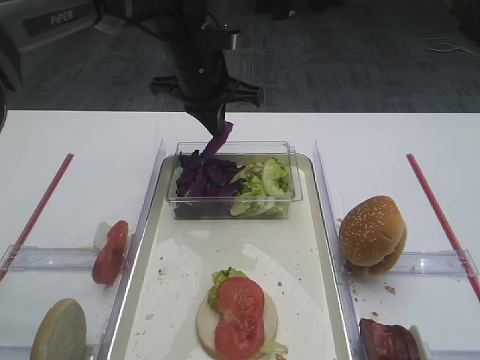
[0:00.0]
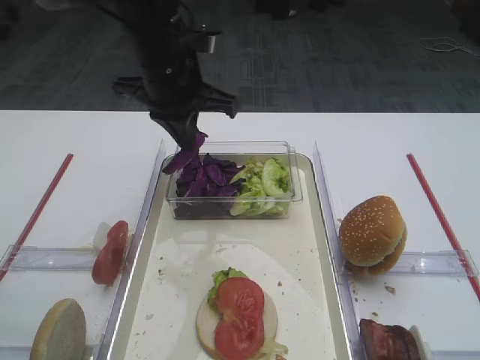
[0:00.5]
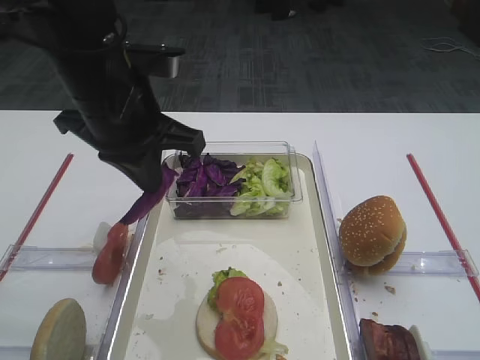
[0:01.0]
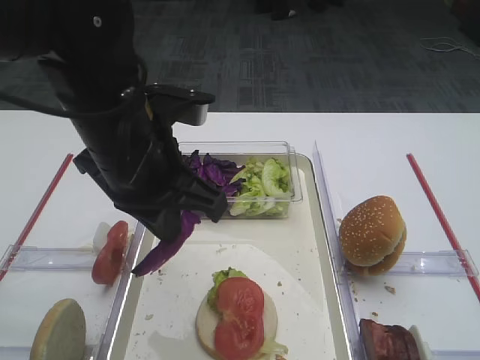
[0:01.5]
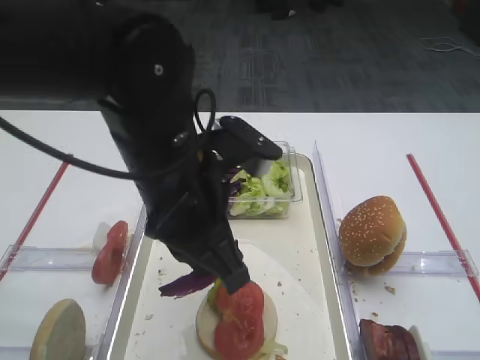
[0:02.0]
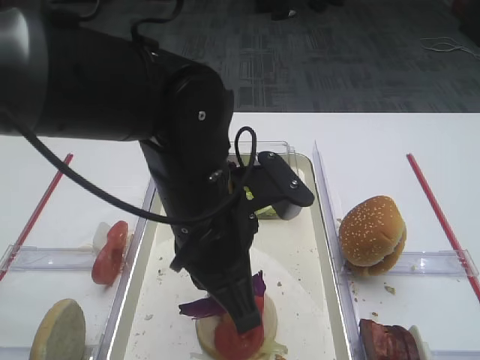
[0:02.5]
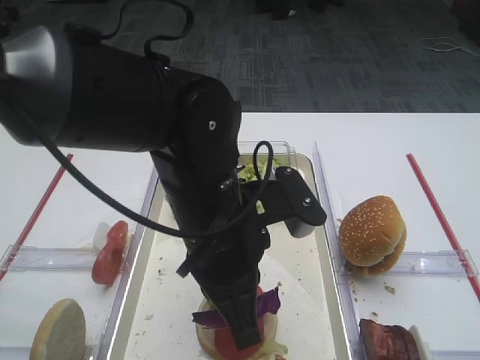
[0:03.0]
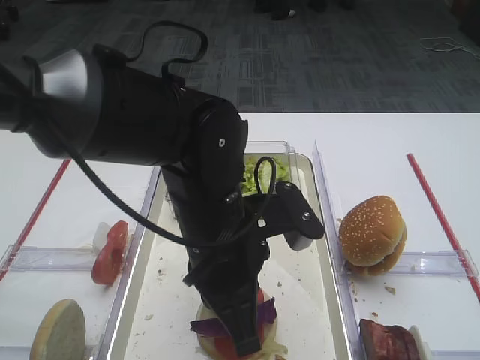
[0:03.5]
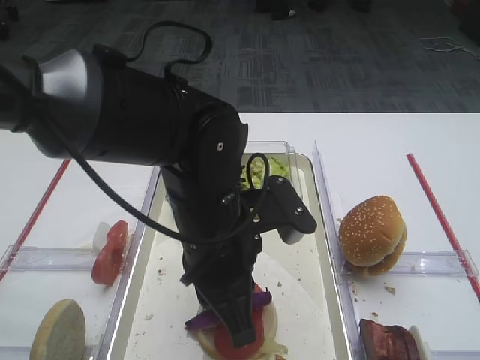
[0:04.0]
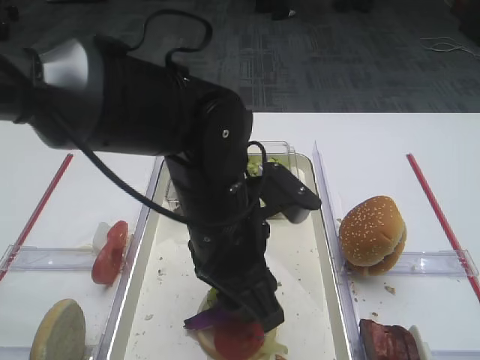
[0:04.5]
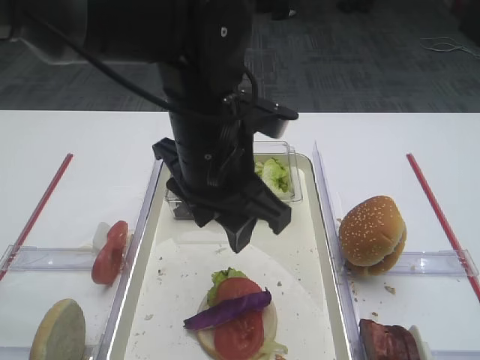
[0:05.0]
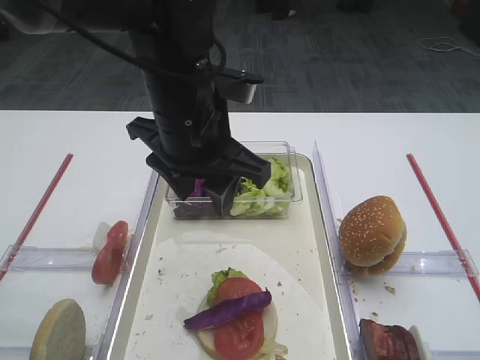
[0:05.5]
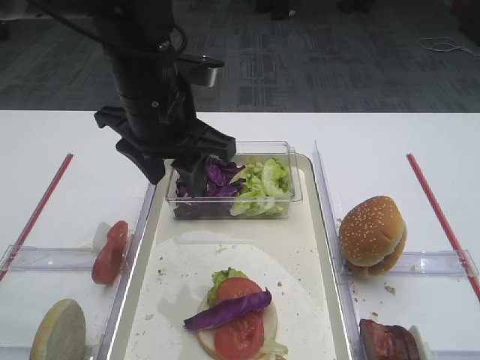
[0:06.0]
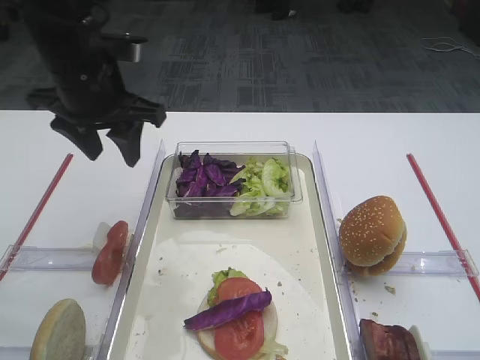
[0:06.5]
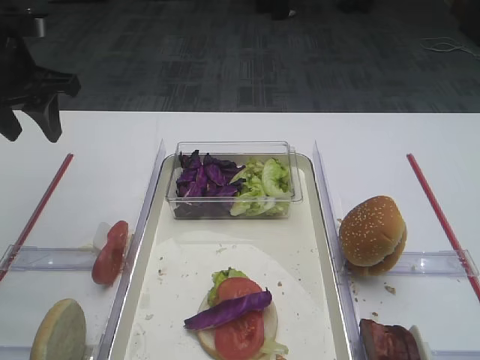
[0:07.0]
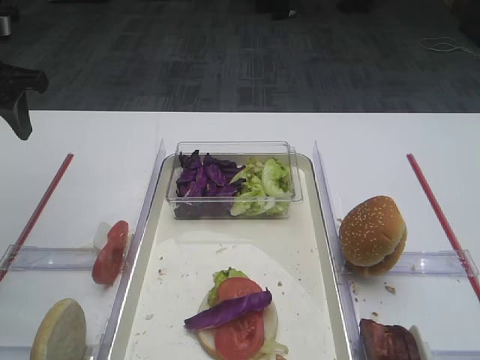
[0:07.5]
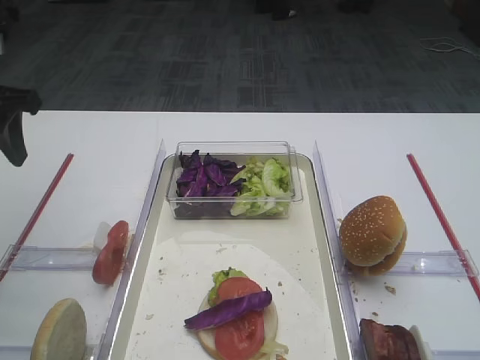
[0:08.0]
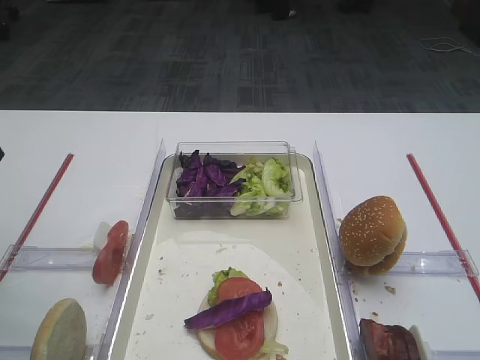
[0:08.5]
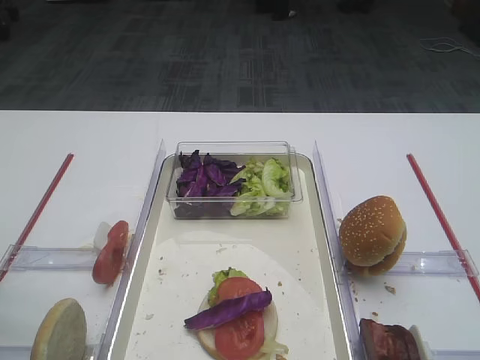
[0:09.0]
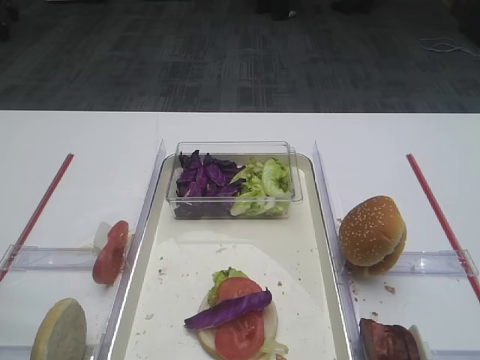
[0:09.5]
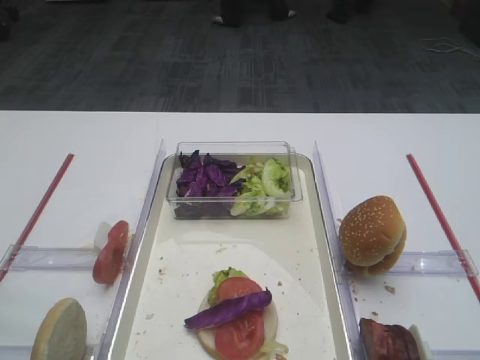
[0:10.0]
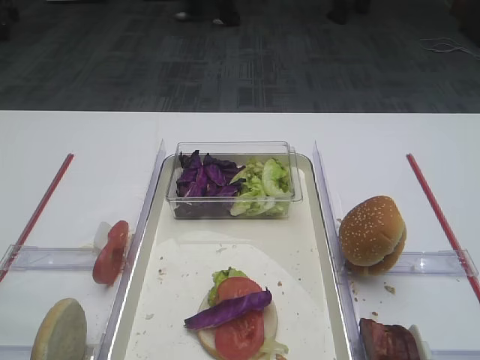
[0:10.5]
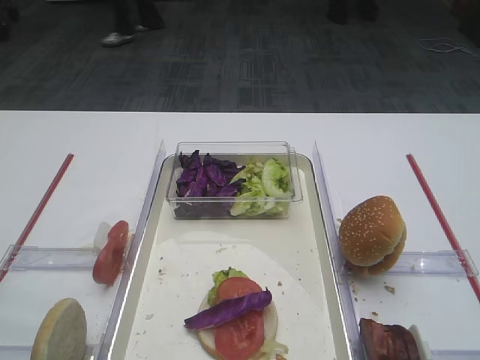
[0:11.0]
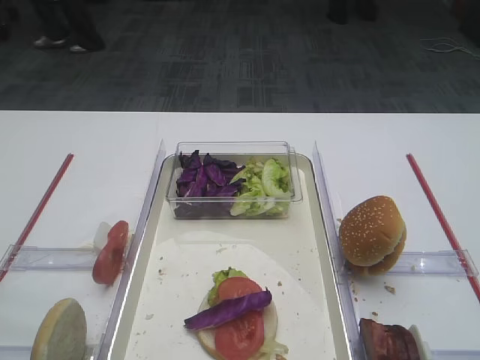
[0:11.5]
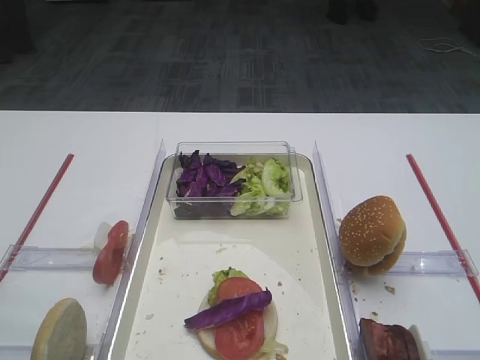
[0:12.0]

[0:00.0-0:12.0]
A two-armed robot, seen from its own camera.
Step, 0:01.0 to 0:04.5: Place the purple cabbage on the tomato slice with the left gripper.
0:00.0 to 0:02.0: The left gripper moves backward, roughly 20 cm.
0:02.0 to 0:04.0: The left gripper goes roughly 5 cm downward.
0:04.0 to 0:06.0: The left gripper moves forward, upward and to the left, about 15 cm, and opens up.
0:06.0 to 0:08.0: The left gripper moves to the left, about 20 cm.
0:08.0 to 0:10.0: The left gripper travels backward by some 25 cm.

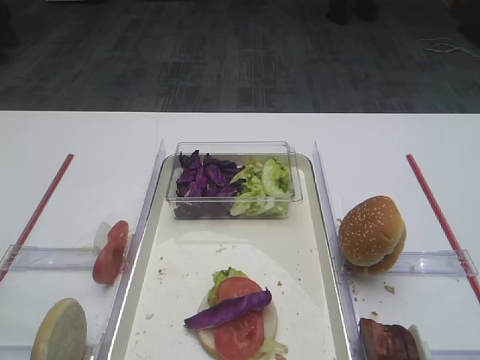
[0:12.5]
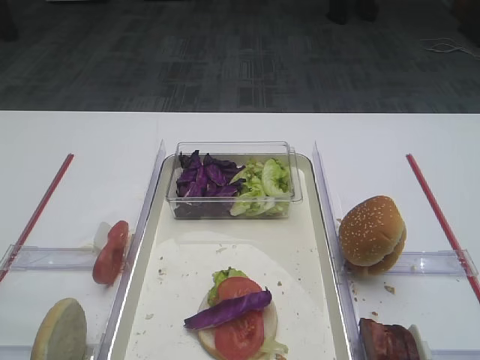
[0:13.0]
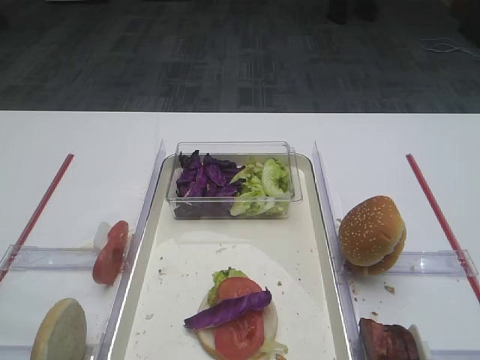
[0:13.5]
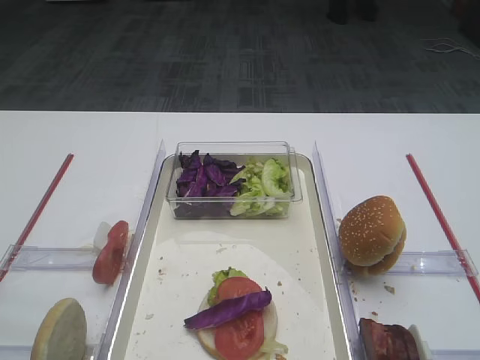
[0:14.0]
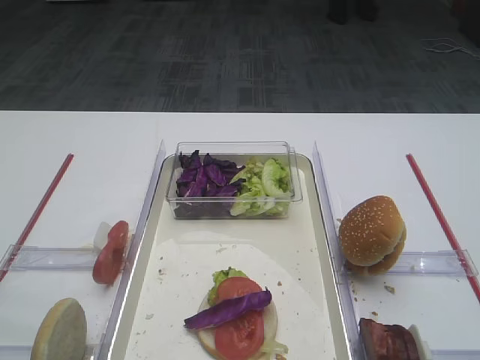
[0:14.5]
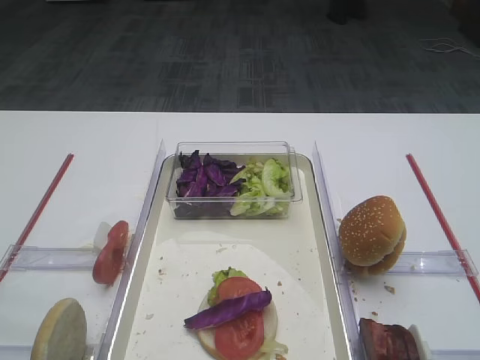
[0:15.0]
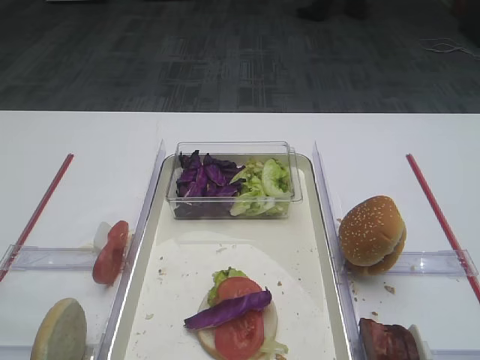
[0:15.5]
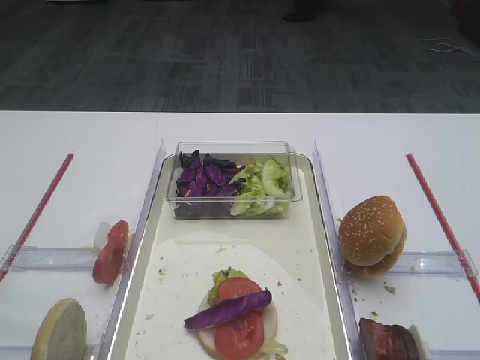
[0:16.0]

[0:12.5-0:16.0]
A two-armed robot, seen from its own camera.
0:12.5 to 0:16.0: Neither gripper changes place.

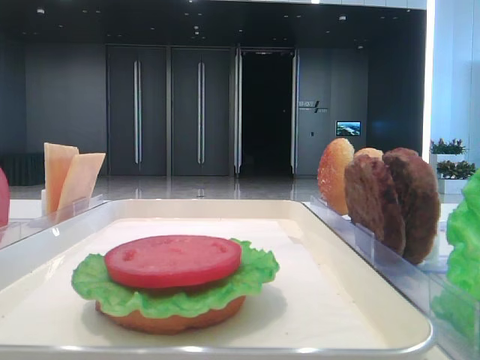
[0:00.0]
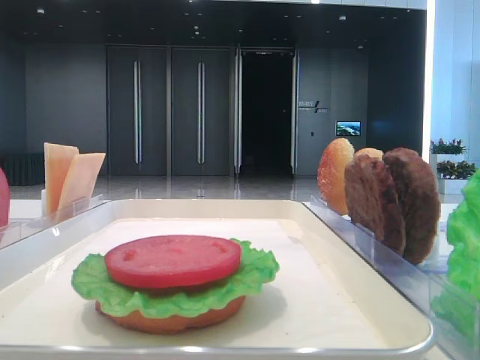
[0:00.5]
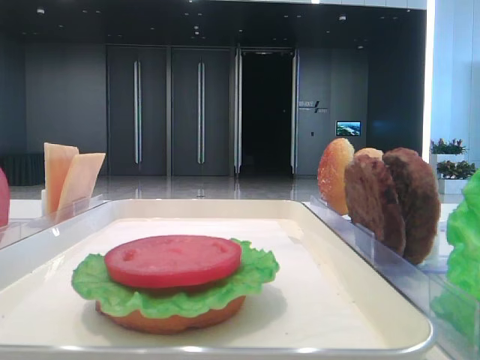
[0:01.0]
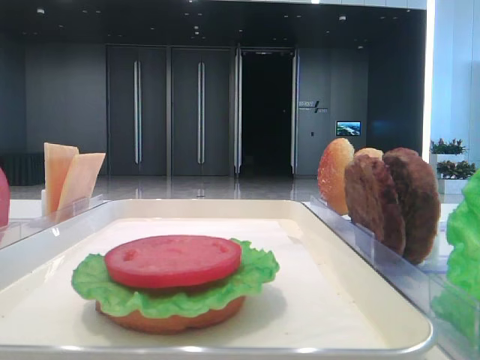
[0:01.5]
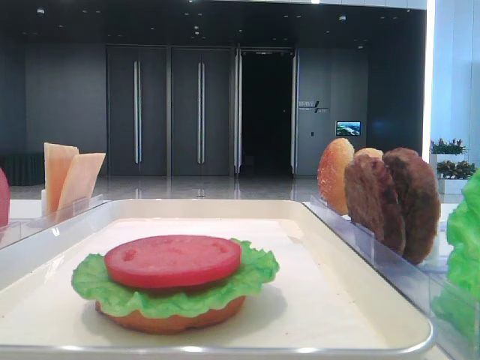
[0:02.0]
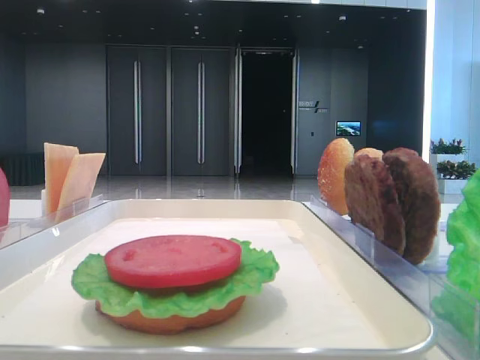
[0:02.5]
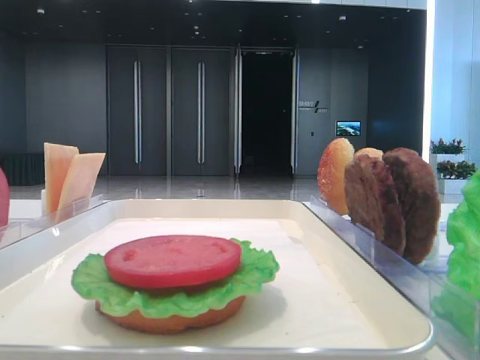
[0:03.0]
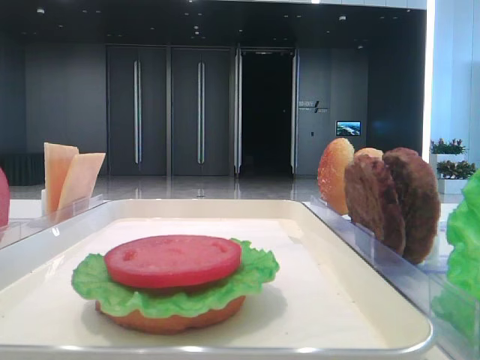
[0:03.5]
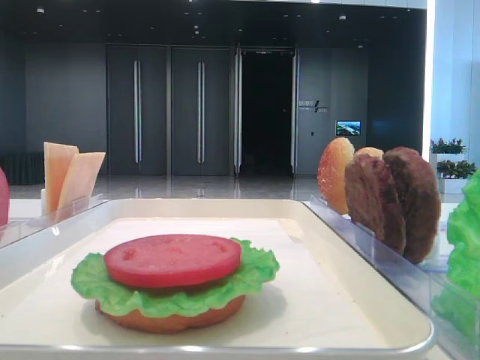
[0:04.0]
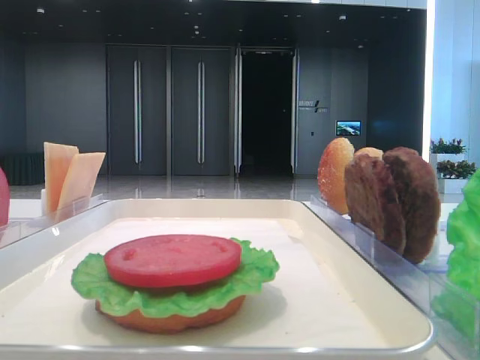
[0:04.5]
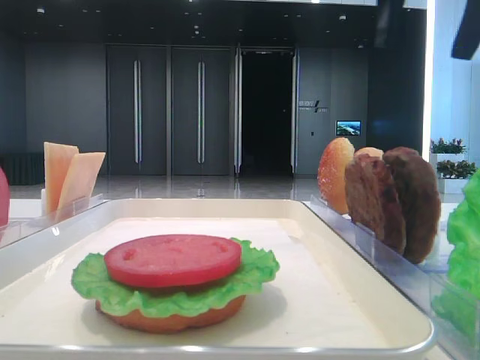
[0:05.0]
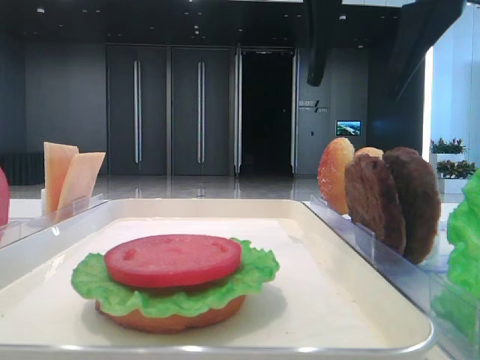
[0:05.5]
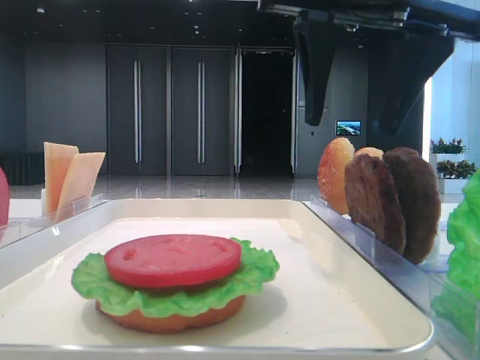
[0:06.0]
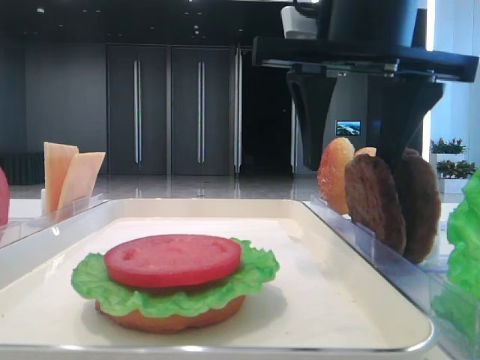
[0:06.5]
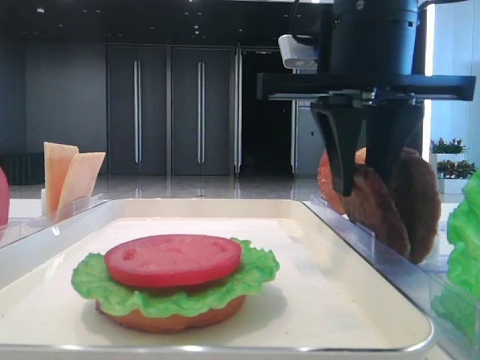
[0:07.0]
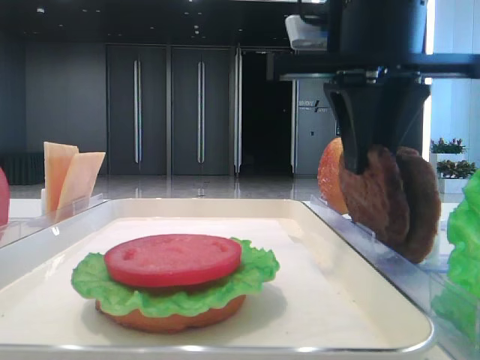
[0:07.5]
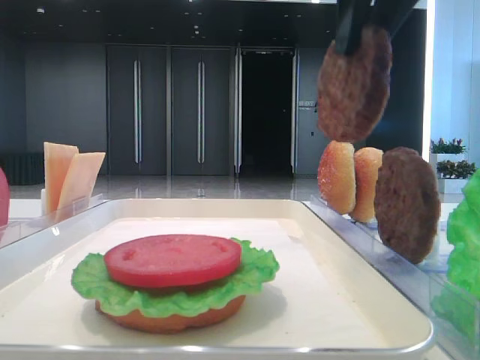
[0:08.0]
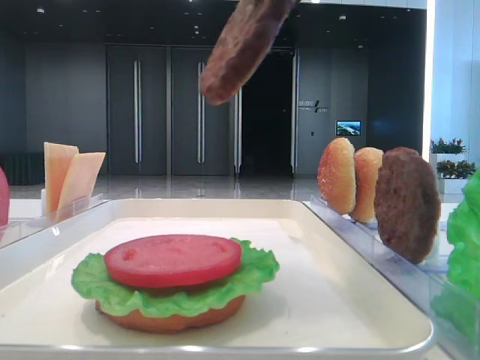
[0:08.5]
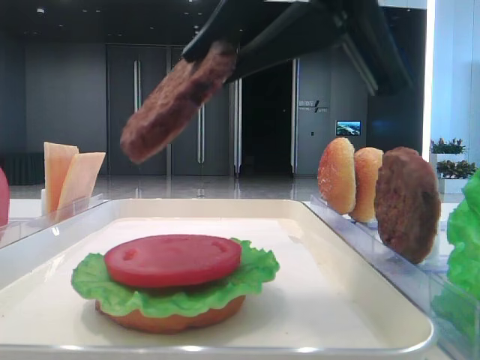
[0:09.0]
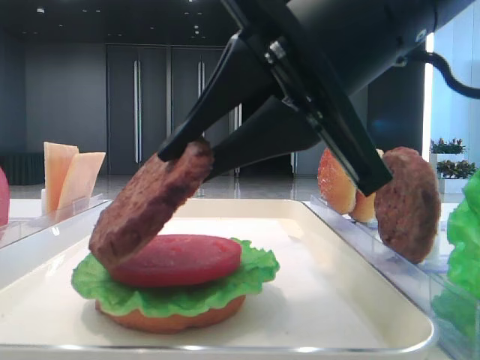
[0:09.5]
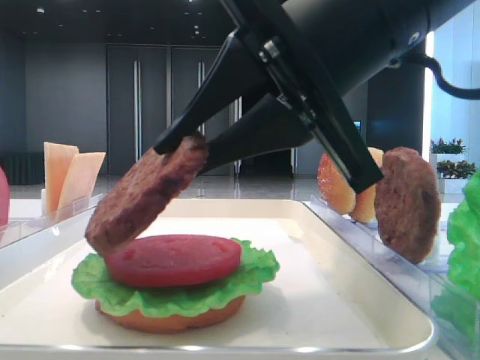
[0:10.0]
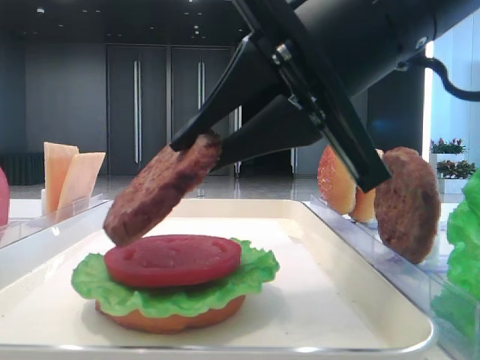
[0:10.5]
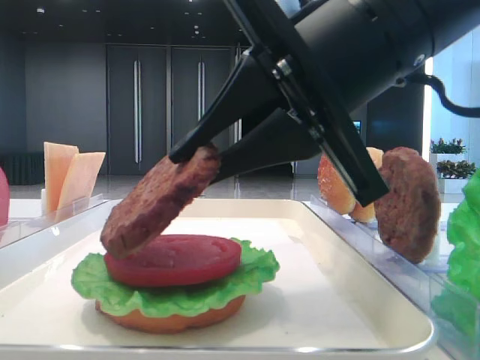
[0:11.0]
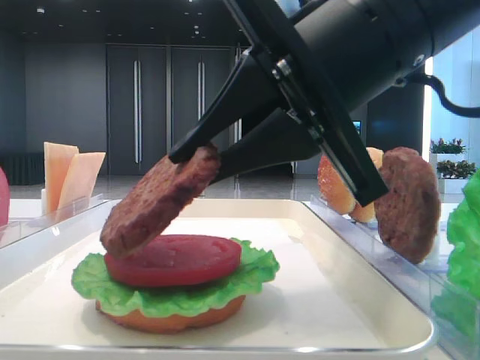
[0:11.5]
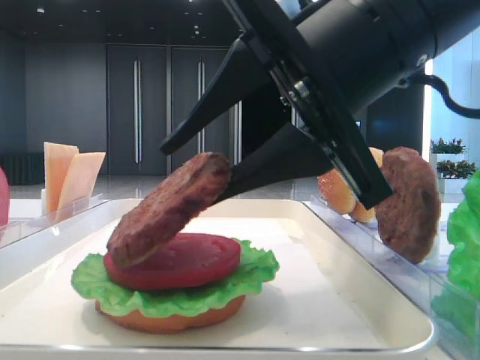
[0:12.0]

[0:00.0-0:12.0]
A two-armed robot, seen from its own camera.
Step, 0:00.0 to 0:07.0: Grab the patty with the right hand.
0:04.0 to 0:06.0: The right gripper heads to the left, covering roughly 20 cm.
0:06.0 to 0:08.0: The right gripper moves upward, approximately 5 cm, and closes its fingers.
0:08.0 to 0:10.0: The right gripper moves downward, about 10 cm.
0:10.0 to 0:12.0: The right gripper opens its fingers.
